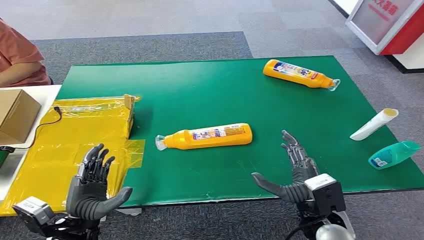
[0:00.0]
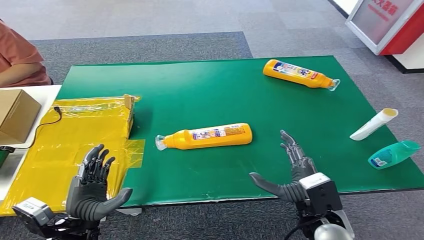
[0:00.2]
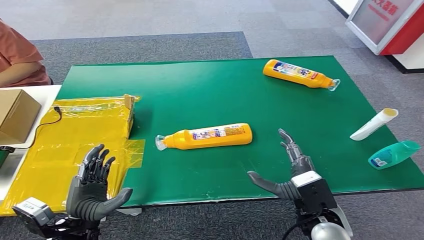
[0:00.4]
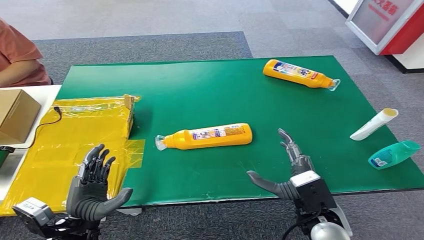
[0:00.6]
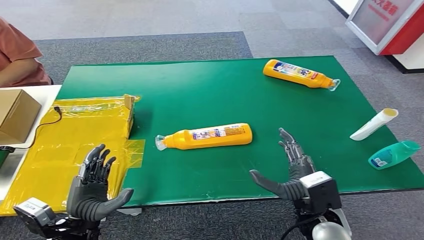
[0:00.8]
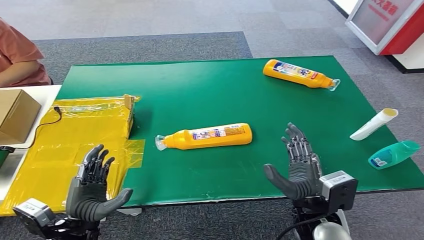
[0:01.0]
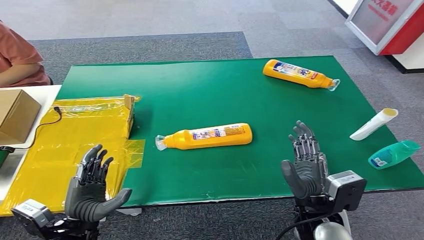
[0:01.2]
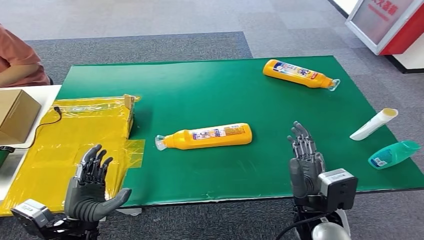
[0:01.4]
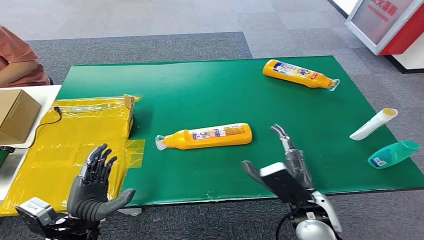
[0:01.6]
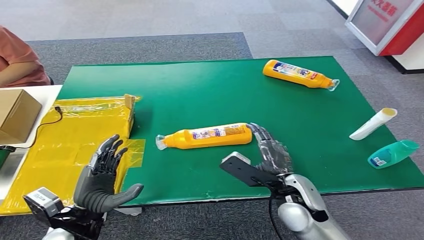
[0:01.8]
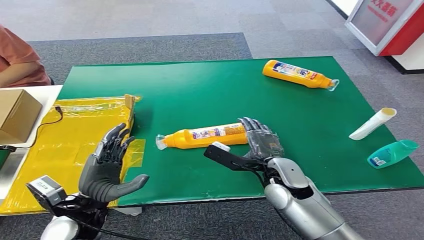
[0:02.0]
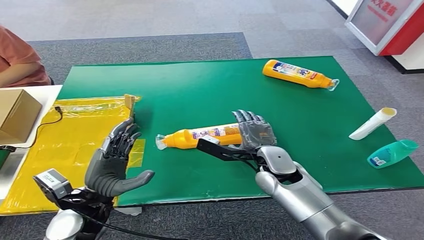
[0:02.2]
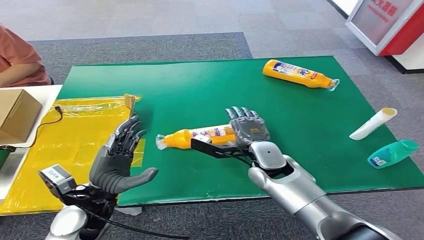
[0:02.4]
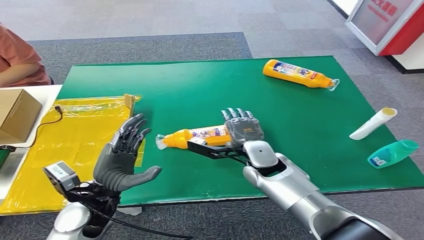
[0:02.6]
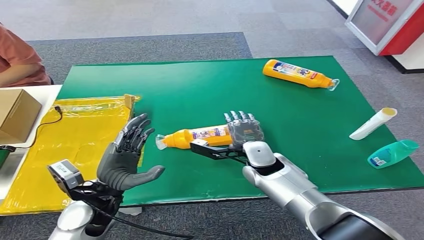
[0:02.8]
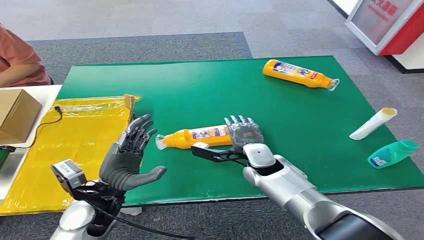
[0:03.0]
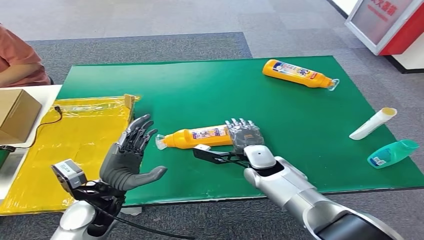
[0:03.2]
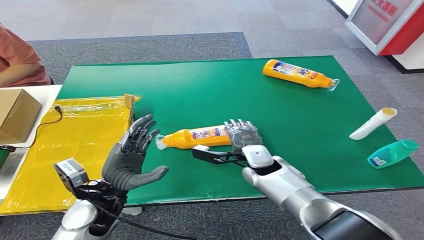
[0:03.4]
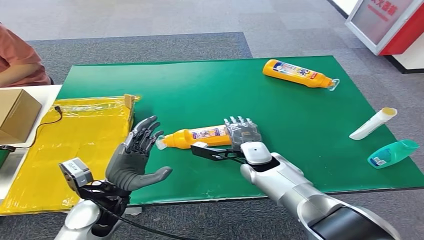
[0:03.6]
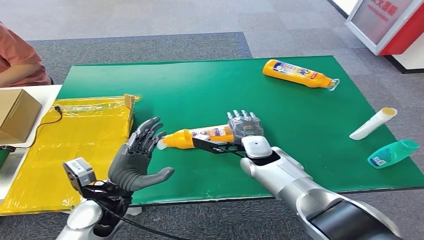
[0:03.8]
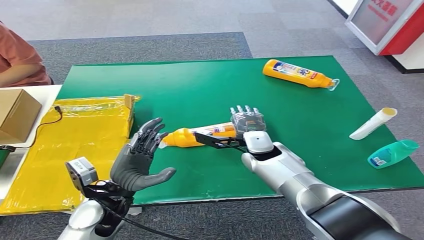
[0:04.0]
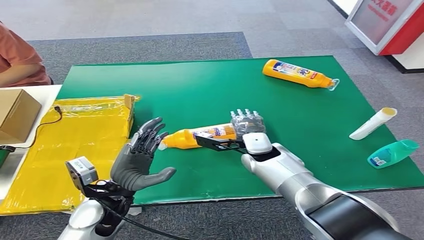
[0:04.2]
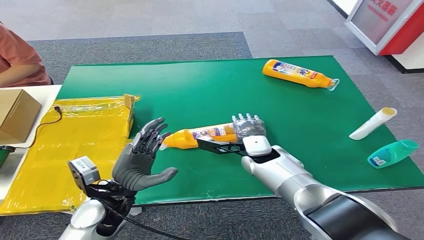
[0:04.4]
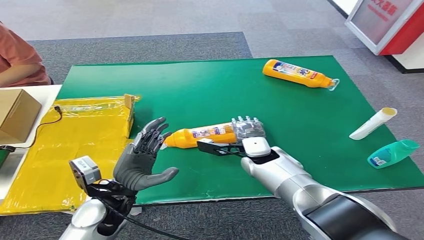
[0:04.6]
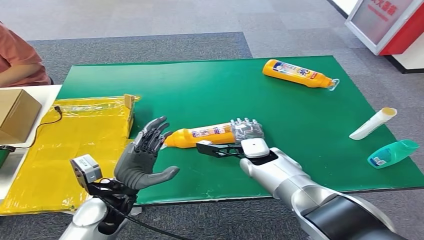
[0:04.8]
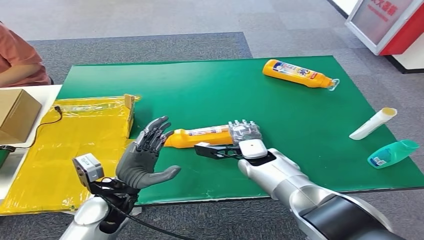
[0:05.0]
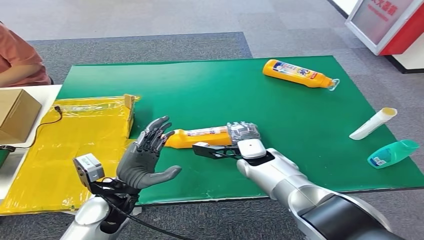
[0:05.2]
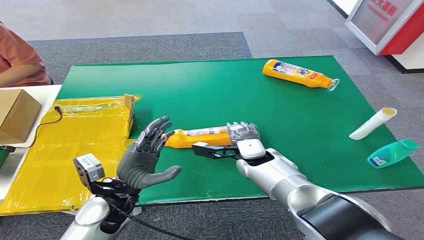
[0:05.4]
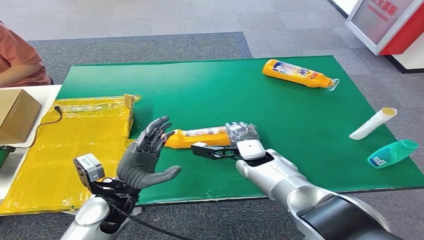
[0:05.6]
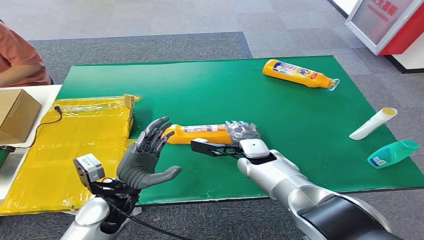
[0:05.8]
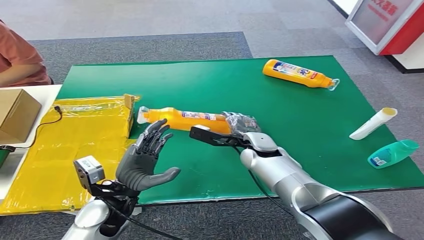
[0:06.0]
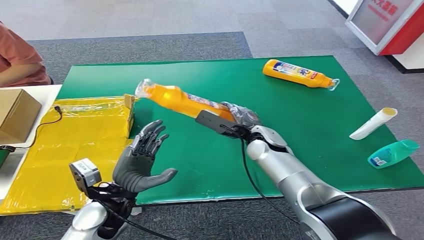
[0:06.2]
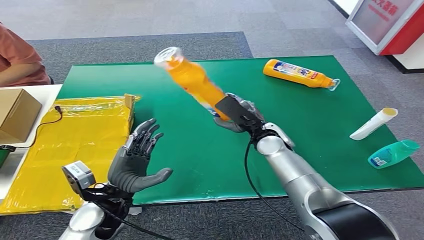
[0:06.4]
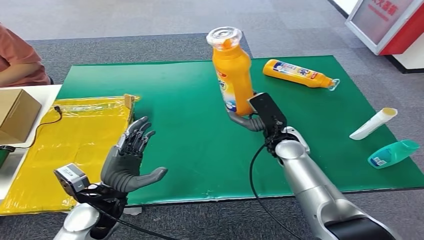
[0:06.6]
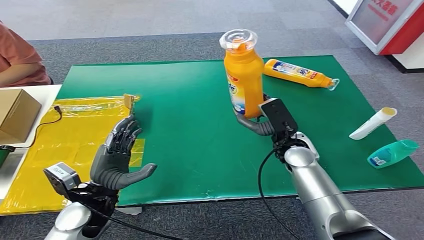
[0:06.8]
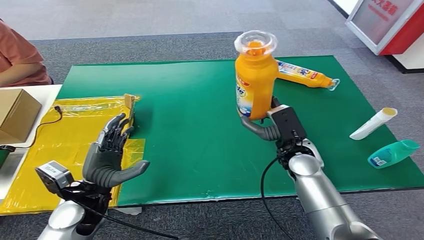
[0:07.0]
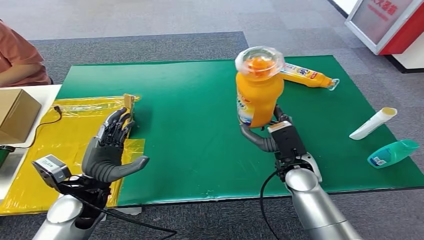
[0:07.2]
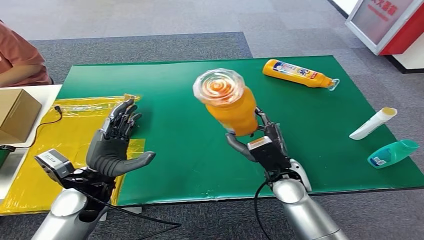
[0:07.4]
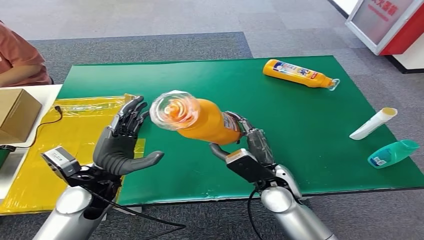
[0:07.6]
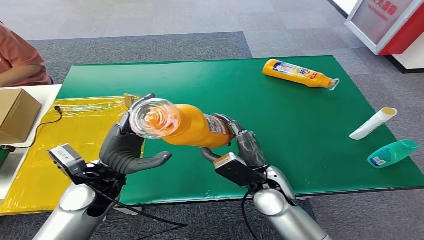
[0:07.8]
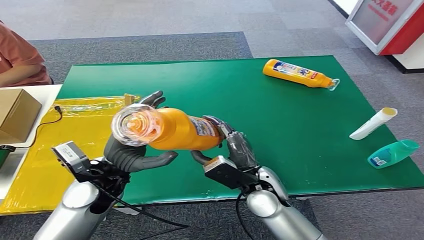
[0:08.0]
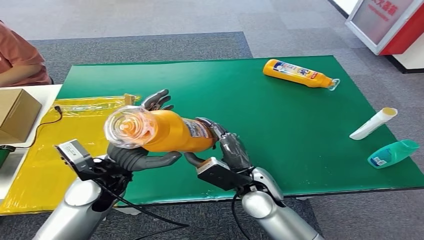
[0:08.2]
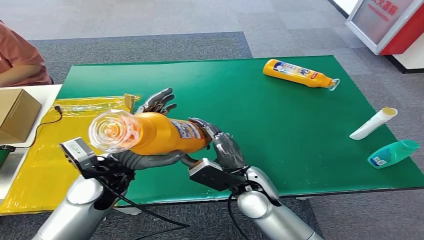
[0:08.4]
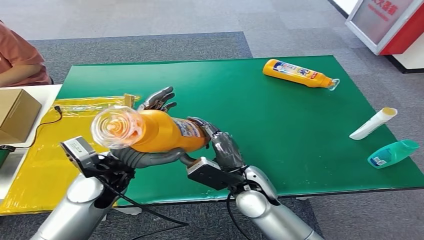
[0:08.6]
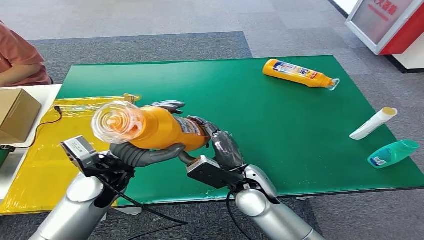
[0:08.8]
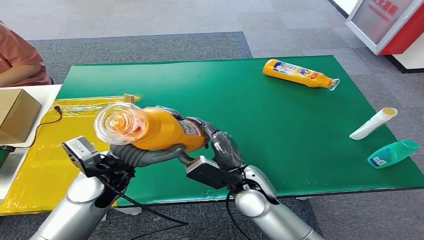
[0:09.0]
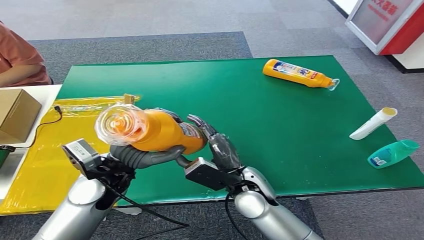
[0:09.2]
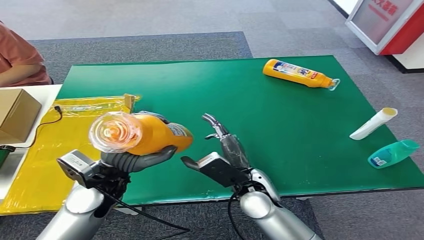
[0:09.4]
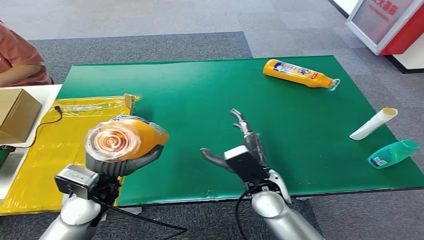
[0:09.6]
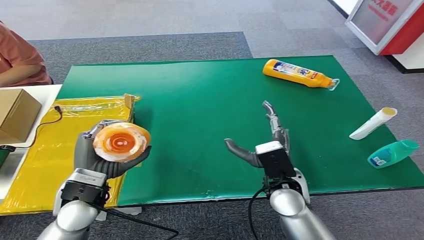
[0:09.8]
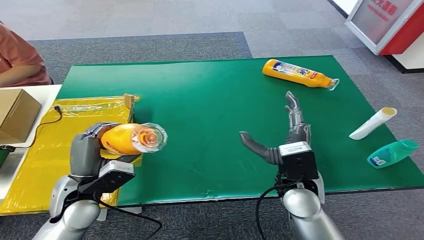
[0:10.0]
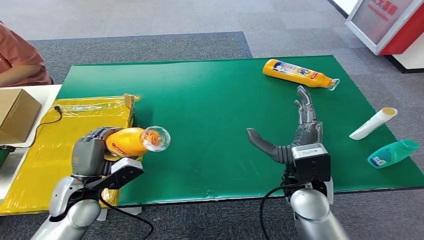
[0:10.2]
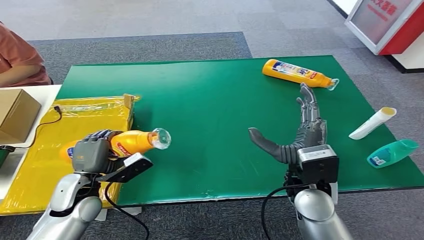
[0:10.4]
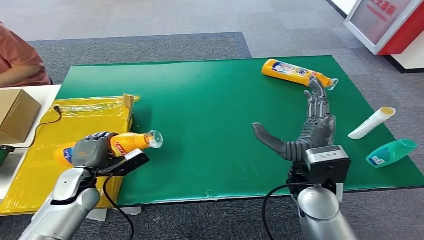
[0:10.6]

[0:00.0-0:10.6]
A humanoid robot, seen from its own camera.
Step, 0:00.0 to 0:07.0: Pick up the bottle from the table.
0:01.6 to 0:03.0: The right hand goes about 15 cm forward. Meanwhile the left hand travels forward by about 10 cm.
0:03.0 to 0:04.6: The hands move only a little.
0:07.6 to 0:09.0: The right hand shifts about 5 cm to the left.

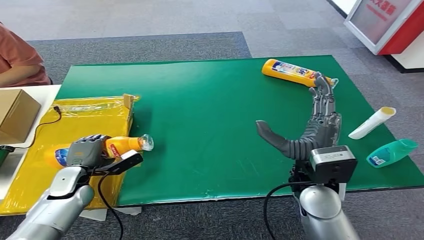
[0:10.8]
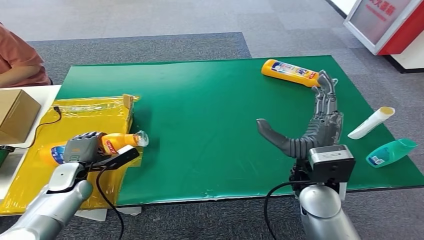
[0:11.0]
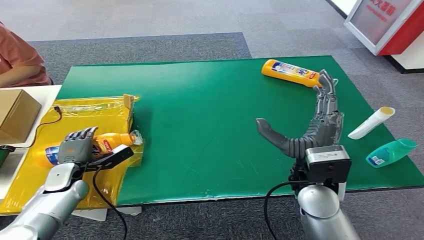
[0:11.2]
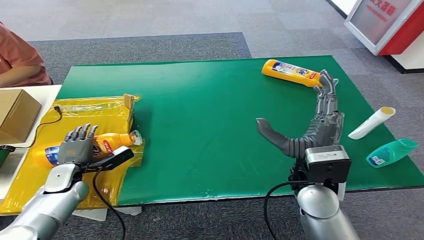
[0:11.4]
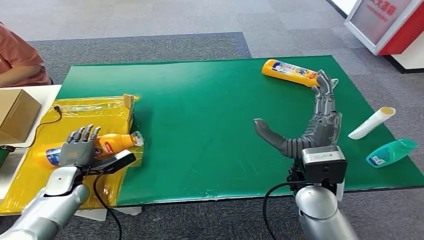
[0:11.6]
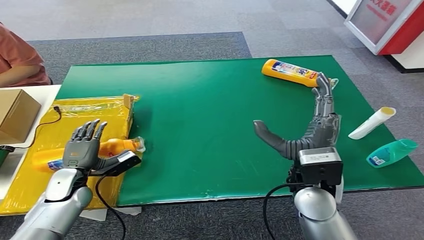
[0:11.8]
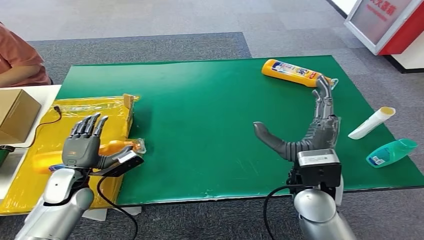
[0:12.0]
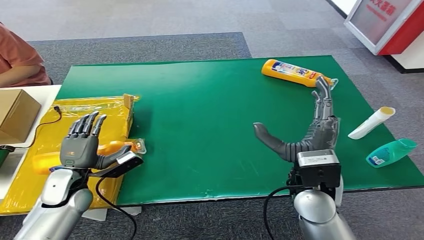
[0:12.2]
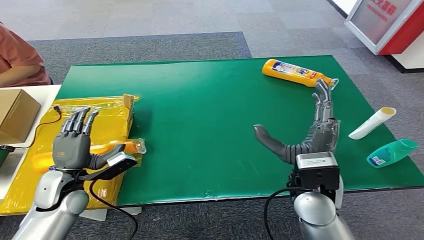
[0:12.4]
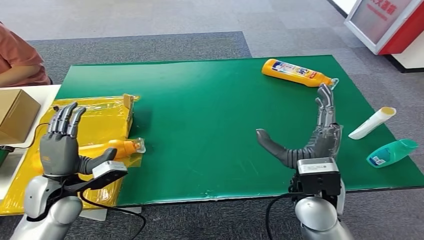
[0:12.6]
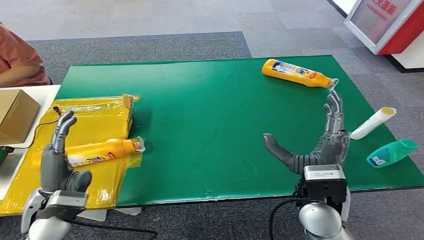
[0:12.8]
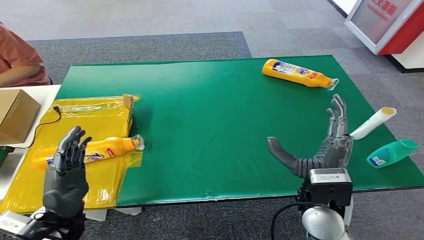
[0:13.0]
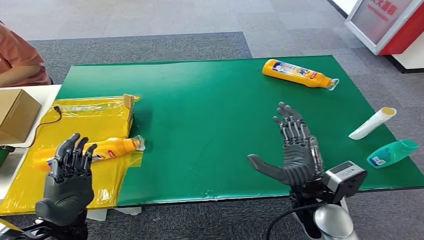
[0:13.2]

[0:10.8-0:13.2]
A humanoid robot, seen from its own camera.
Step, 0:10.8 to 0:13.2: Turn the bottle to the front side.
0:10.8 to 0:12.0: The hands stay close to where they were, moving slightly.
0:12.0 to 0:13.2: The right hand ends up about 5 cm from where it was. The left hand shifts roughly 15 cm backward, to the right and upward.
